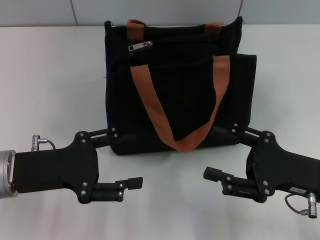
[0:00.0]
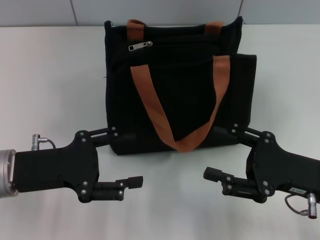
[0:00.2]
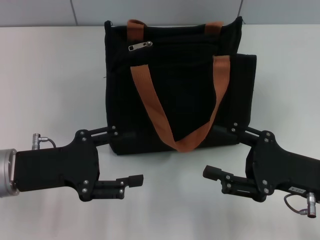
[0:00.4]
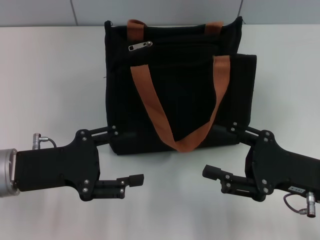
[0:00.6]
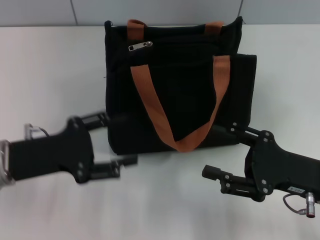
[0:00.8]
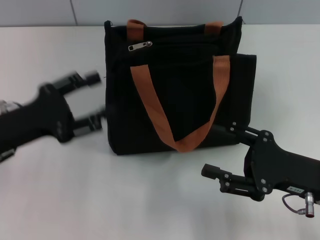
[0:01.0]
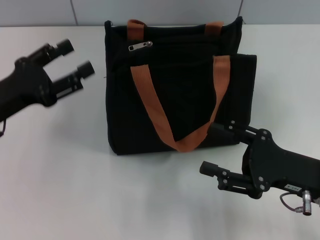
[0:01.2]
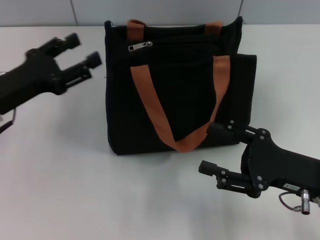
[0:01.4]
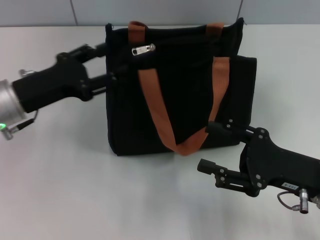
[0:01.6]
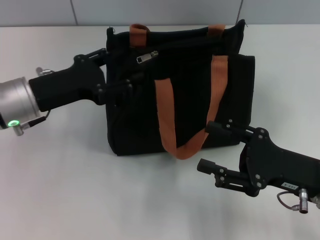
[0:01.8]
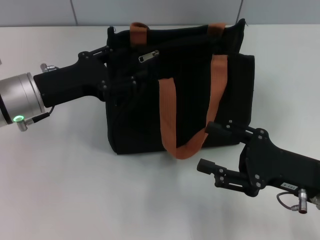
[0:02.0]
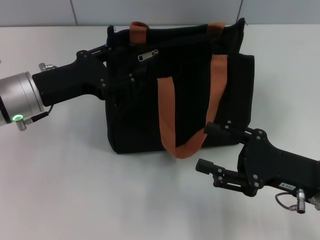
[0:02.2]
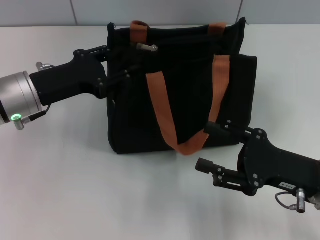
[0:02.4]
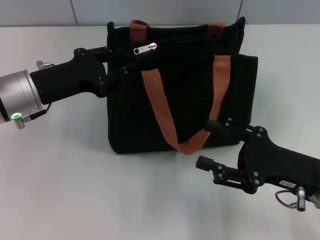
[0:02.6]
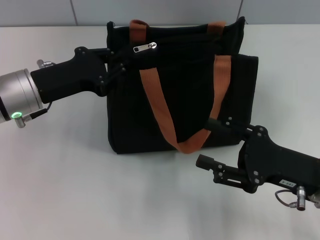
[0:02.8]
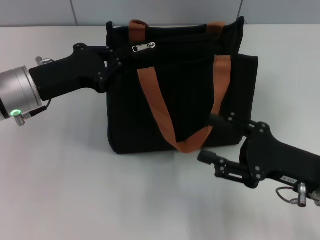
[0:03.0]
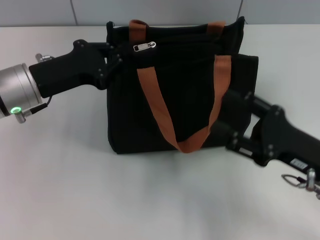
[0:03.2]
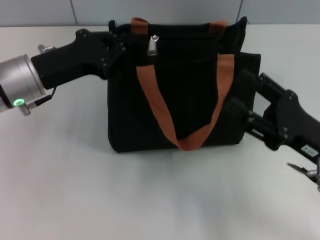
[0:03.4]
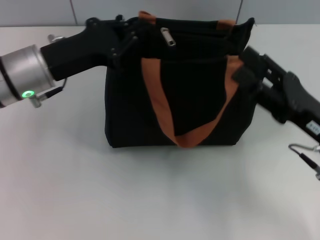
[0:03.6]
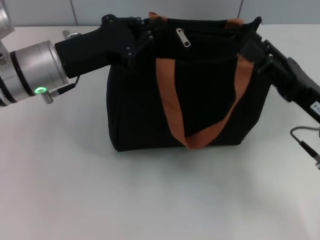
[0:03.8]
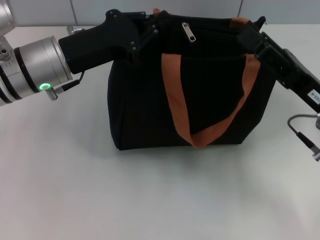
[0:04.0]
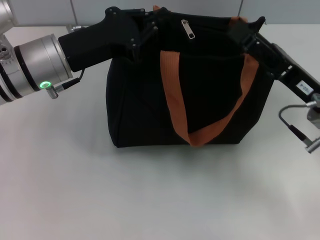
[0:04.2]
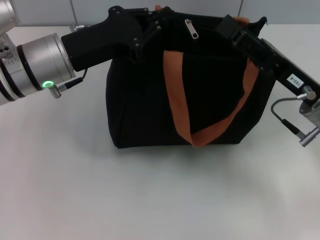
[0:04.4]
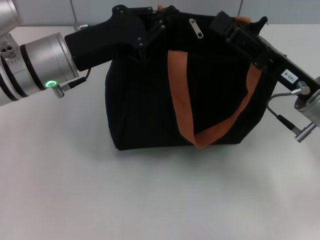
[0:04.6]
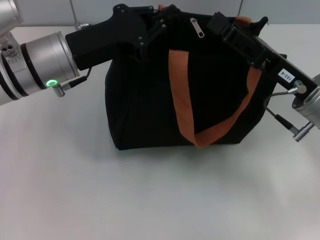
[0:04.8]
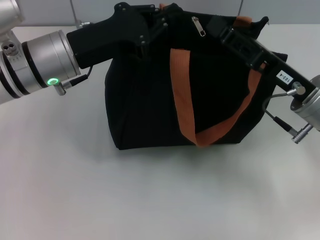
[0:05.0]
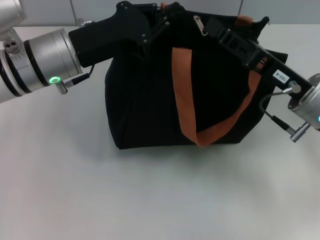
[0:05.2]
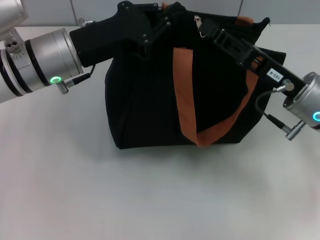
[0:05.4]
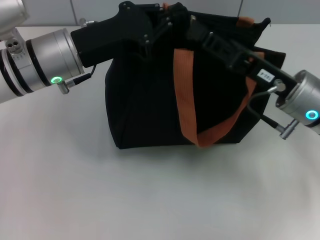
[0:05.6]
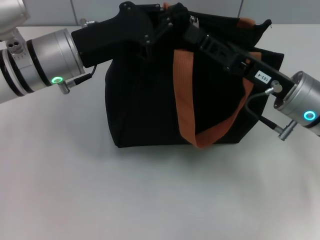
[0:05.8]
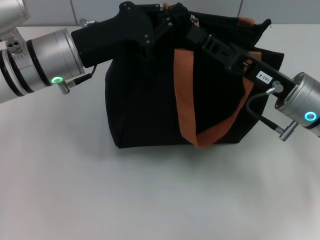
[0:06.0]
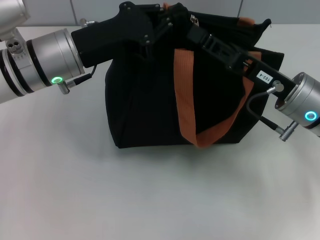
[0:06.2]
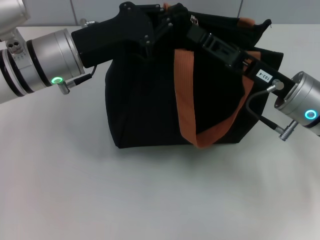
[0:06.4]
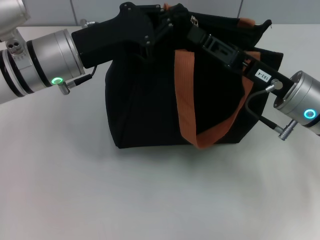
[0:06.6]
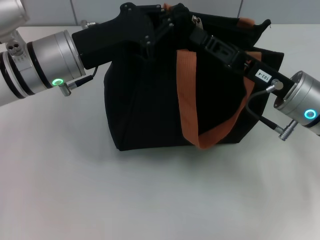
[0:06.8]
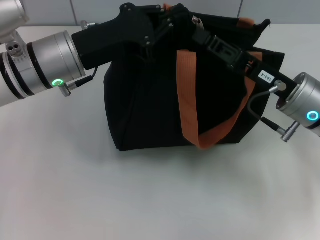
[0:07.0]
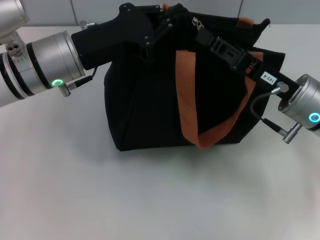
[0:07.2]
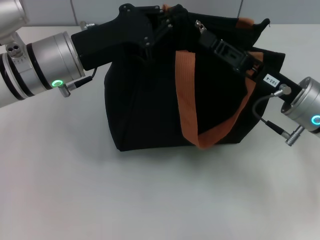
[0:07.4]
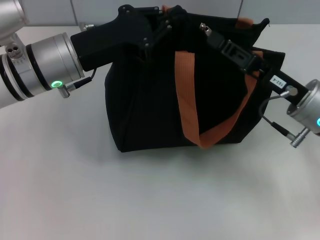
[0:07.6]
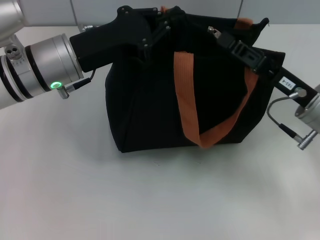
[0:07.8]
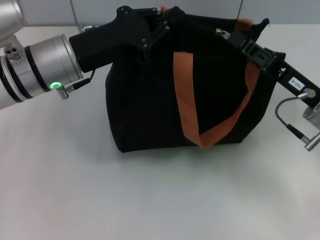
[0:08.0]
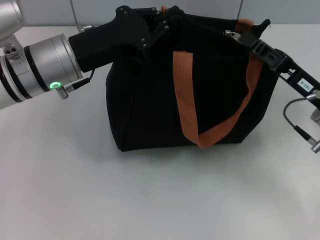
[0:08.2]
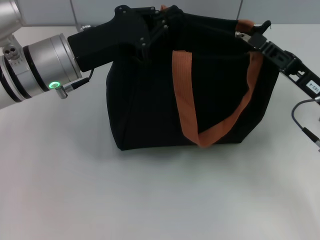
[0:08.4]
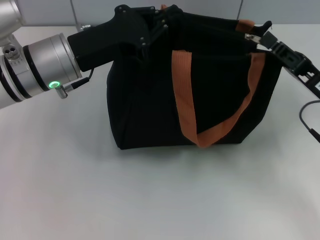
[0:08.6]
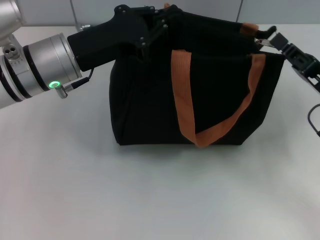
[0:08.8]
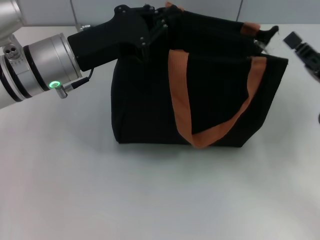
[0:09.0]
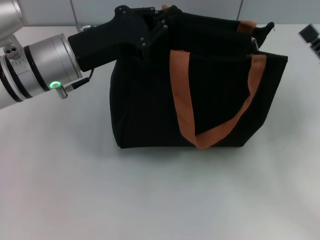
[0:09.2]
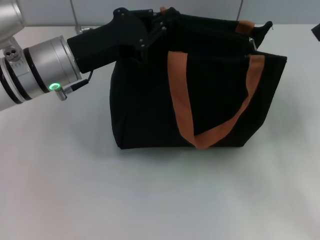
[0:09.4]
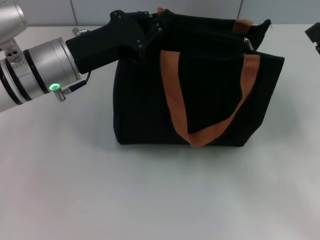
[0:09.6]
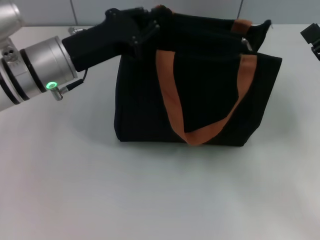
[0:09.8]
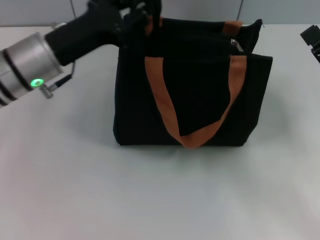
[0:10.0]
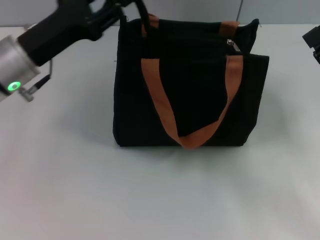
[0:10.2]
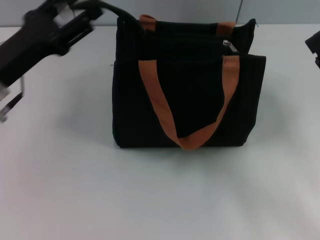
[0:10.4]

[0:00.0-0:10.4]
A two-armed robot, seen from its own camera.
Step, 0:00.0 to 0:08.8: Pull up the zipper with your right hand.
0:00.0 to 0:01.4: The left gripper goes some 5 cm forward.
0:01.4 to 0:03.0: The left gripper moves approximately 5 cm, and closes up.
0:03.0 to 0:04.4: The left gripper shifts some 5 cm to the right. Meanwhile the right gripper heads forward, covering about 5 cm.
0:04.4 to 0:06.0: The right gripper closes up.
0:06.0 to 0:07.4: The right gripper closes up.
0:07.4 to 0:09.0: The right gripper is displaced to the right by approximately 10 cm.
0:09.0 to 0:10.4: The right gripper opens its fingers; the left gripper shifts about 10 cm to the left, and opens its fingers.

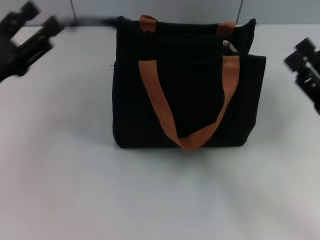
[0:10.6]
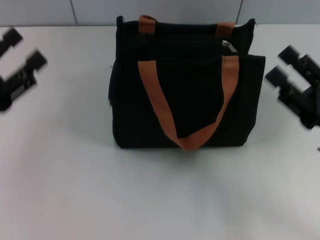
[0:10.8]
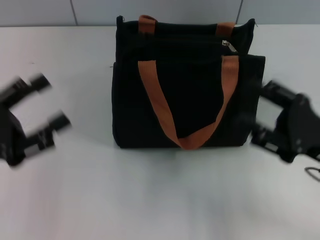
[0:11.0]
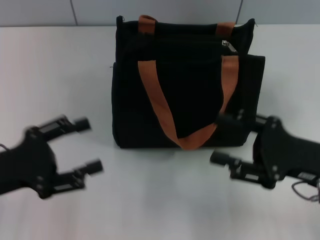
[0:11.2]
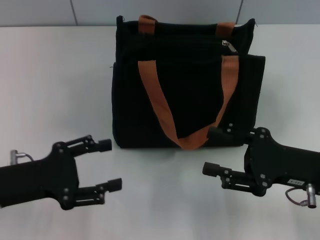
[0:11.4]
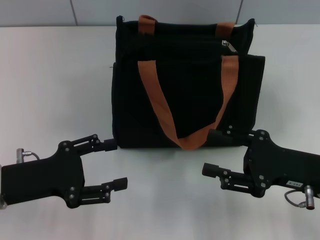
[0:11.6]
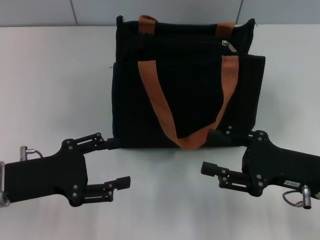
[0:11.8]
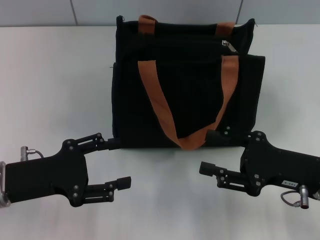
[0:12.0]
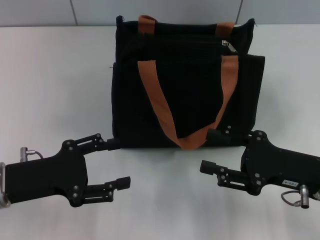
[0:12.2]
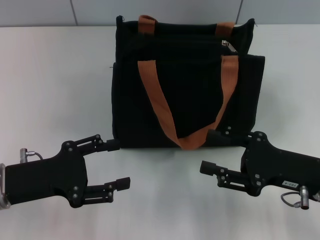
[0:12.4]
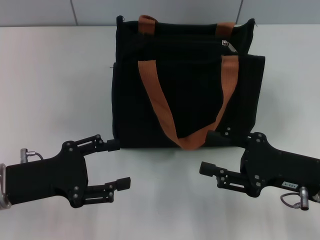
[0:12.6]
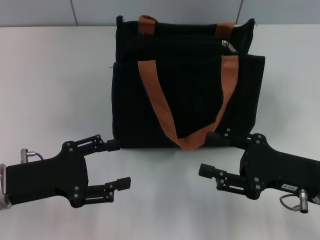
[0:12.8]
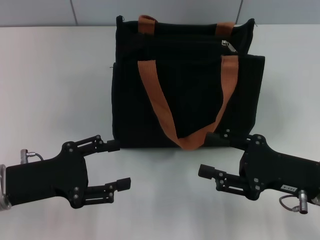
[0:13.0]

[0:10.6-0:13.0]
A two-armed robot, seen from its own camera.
0:10.6 to 0:11.8: The left gripper shifts by approximately 5 cm.
0:11.8 to 0:13.0: The two grippers keep their place.

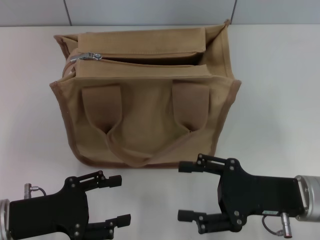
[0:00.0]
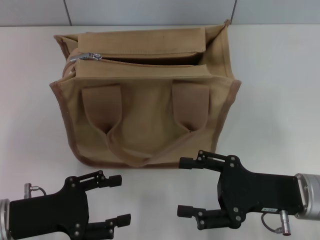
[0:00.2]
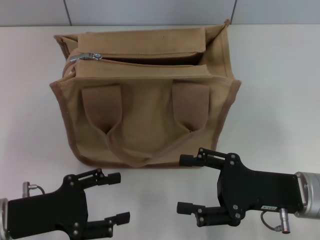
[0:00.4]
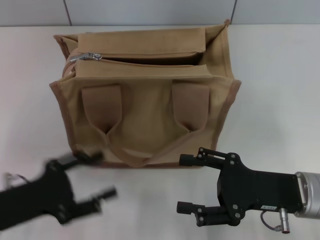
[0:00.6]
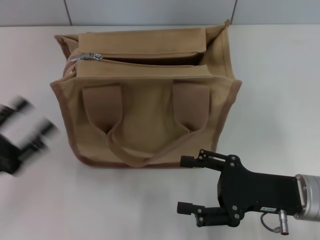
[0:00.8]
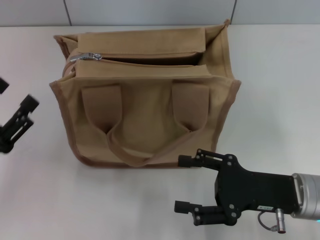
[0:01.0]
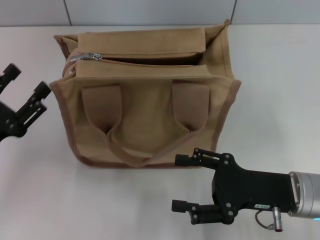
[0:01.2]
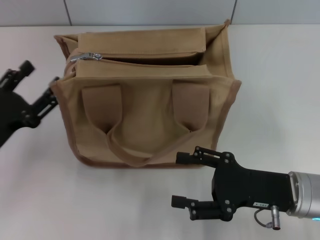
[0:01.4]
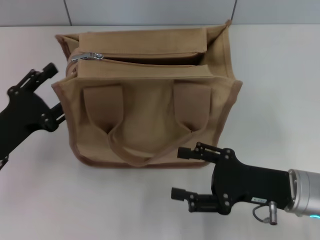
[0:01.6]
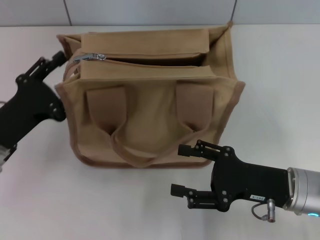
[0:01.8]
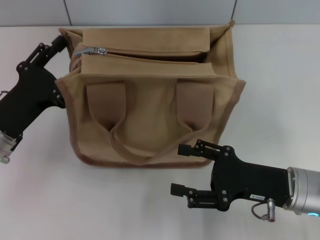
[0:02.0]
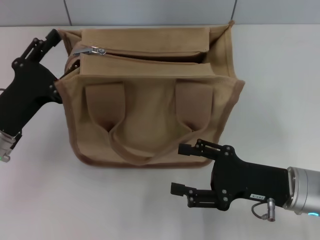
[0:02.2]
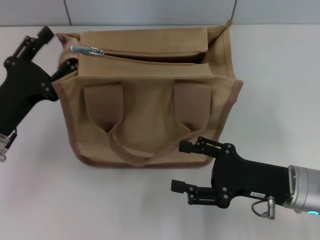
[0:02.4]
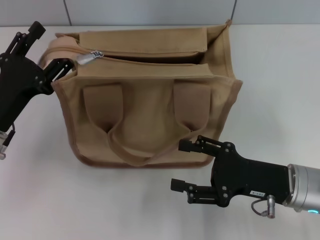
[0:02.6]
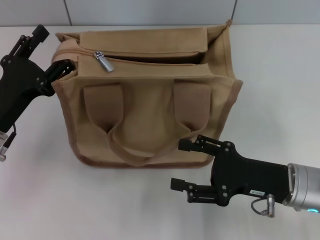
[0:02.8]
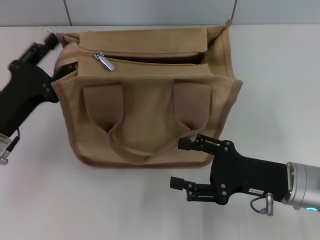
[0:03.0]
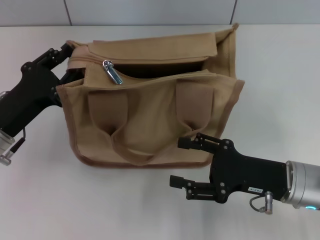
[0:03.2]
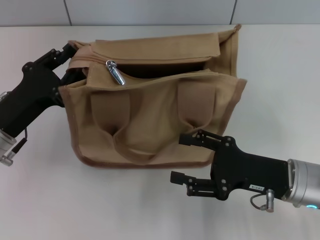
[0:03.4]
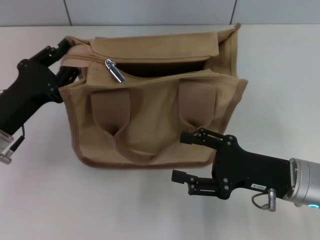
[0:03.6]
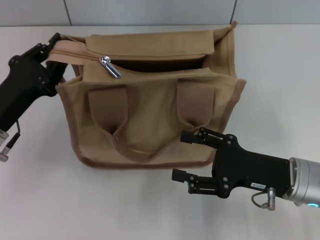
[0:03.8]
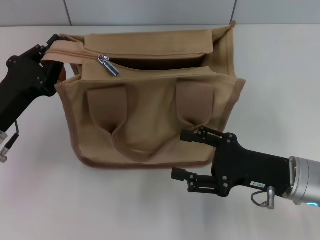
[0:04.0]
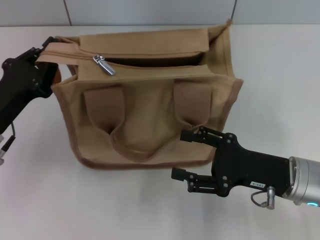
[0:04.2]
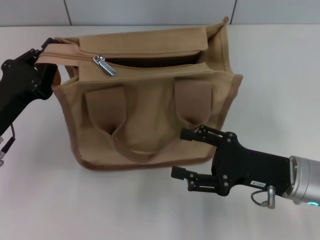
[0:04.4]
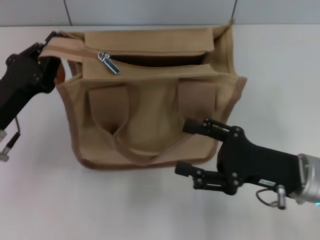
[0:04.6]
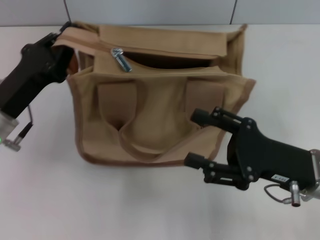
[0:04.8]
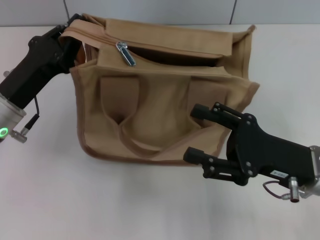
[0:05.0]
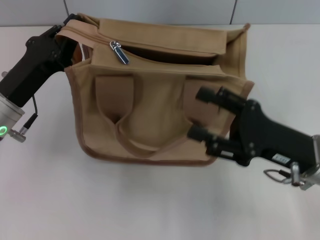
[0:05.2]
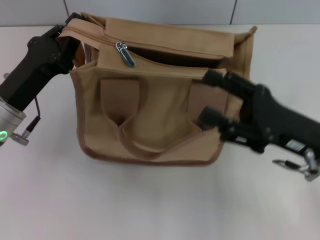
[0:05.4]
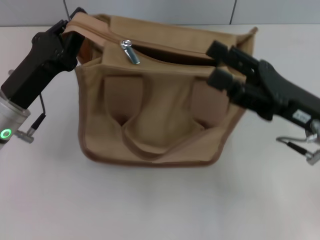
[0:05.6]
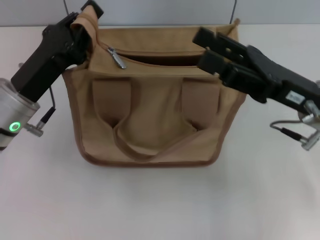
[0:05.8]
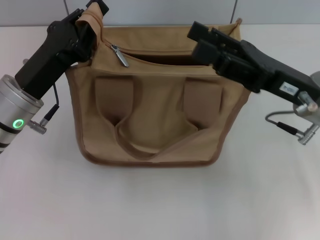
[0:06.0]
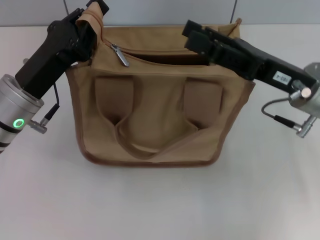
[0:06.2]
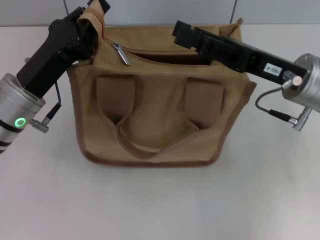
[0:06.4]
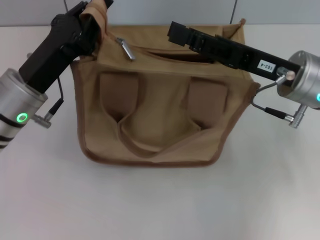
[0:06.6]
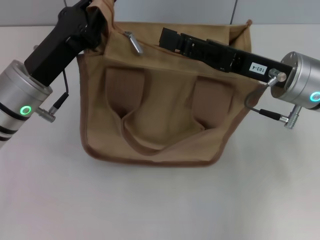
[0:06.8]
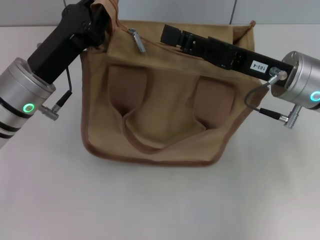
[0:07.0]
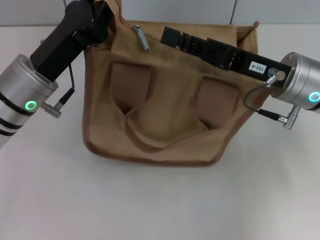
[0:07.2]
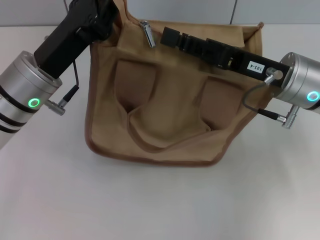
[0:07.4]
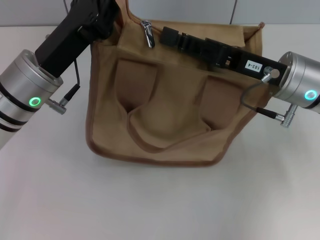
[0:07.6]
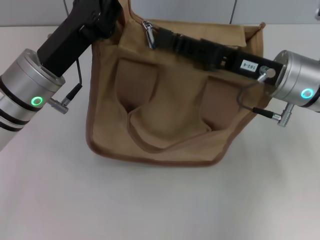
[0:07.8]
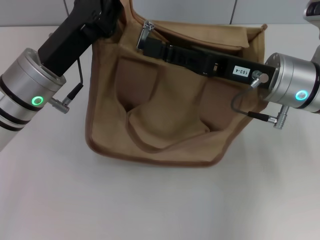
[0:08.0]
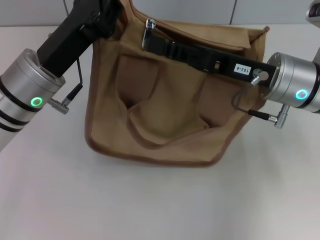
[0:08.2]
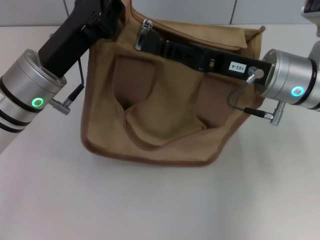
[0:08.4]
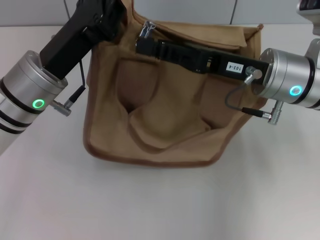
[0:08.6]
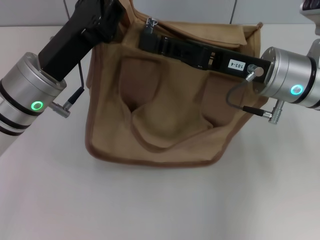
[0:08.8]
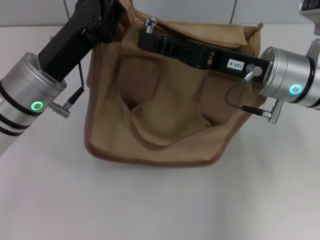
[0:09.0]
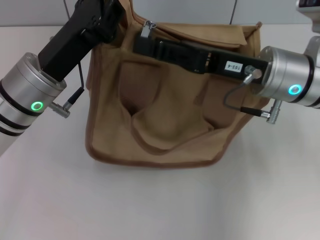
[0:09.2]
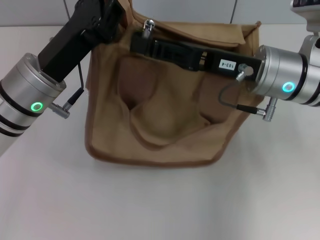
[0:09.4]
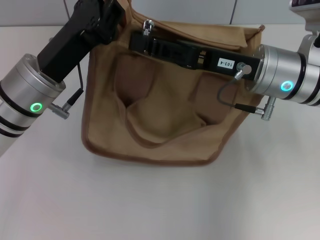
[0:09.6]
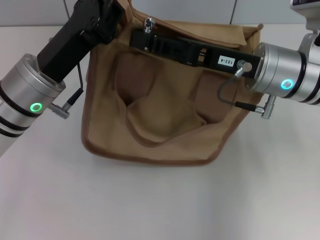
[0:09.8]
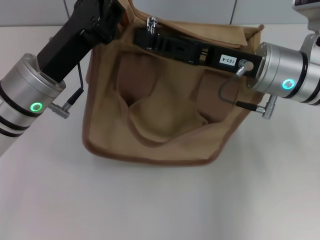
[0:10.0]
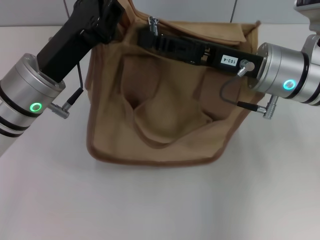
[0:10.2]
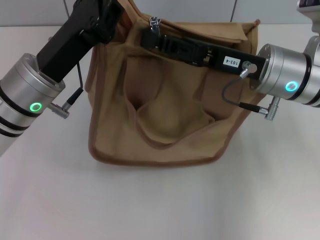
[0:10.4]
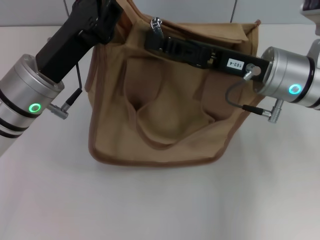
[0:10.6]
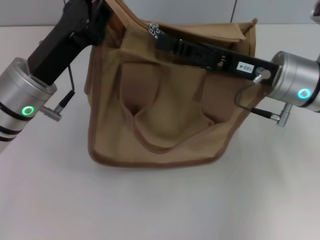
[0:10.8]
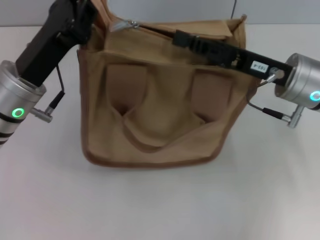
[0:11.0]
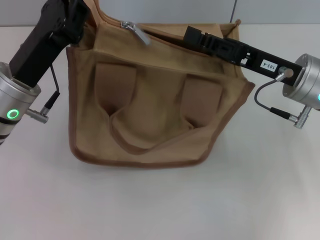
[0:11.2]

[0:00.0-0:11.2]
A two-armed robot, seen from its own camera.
0:00.0 to 0:01.6: The left gripper travels forward by about 5 cm.
0:01.6 to 0:03.2: There are only small adjustments of the grippers.
0:03.2 to 0:04.8: The left gripper closes its fingers.
0:04.8 to 0:06.4: The right gripper goes some 10 cm forward and upward.
0:06.4 to 0:08.0: The right gripper closes its fingers.
0:08.0 to 0:09.6: There are only small adjustments of the grippers.
0:09.6 to 0:11.2: The right gripper travels to the right by approximately 5 cm, and closes.
